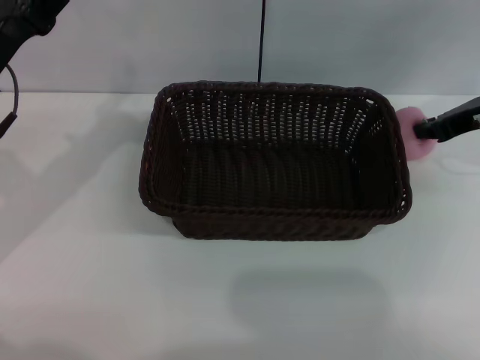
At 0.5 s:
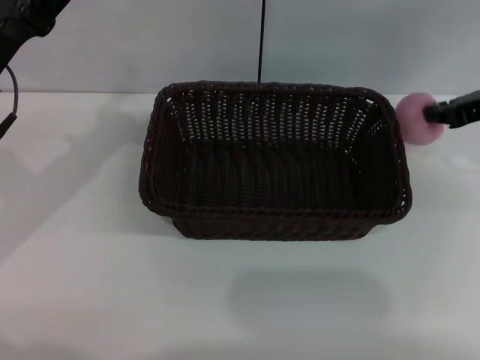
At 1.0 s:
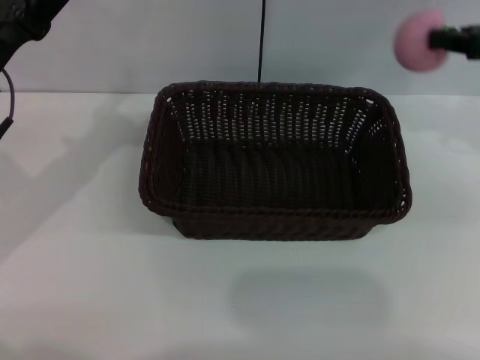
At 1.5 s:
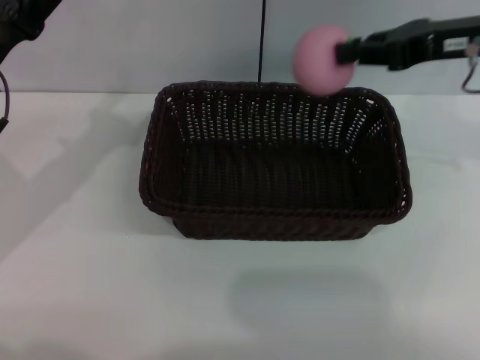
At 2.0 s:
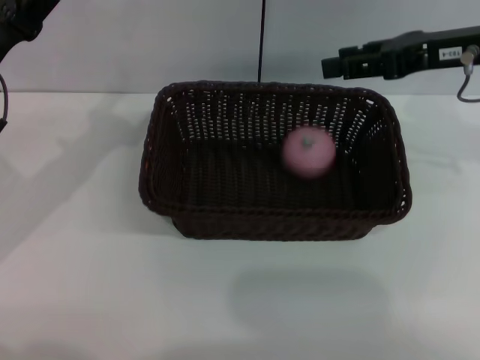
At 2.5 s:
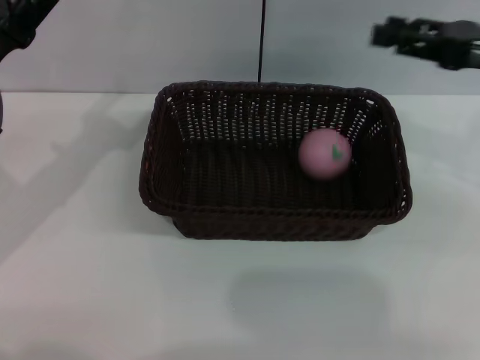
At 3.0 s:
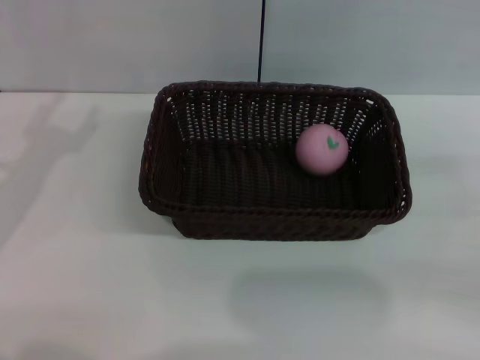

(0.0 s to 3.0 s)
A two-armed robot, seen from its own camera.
0.0 s - 1.5 s: The right gripper heads upward, covering about 10 cm.
1.5 s - 3.0 s: The left gripper moves roughly 5 cm. Meanwhile the right gripper heads backward, to the right and downward, covering roughly 25 cm, and opens its fingers.

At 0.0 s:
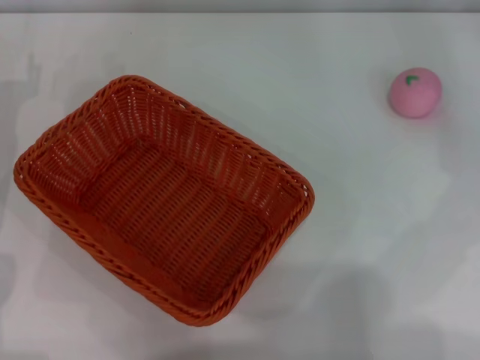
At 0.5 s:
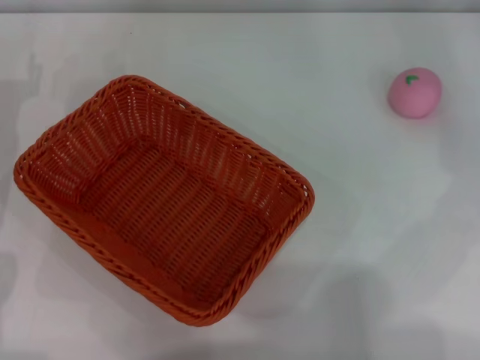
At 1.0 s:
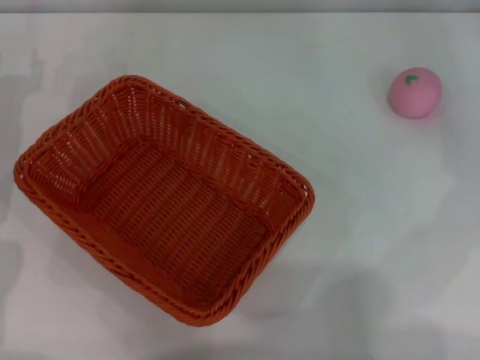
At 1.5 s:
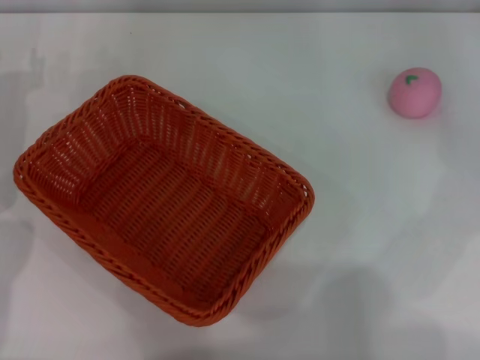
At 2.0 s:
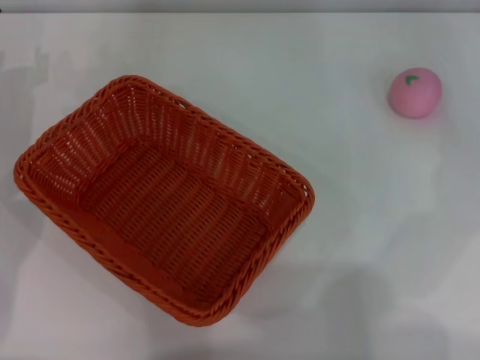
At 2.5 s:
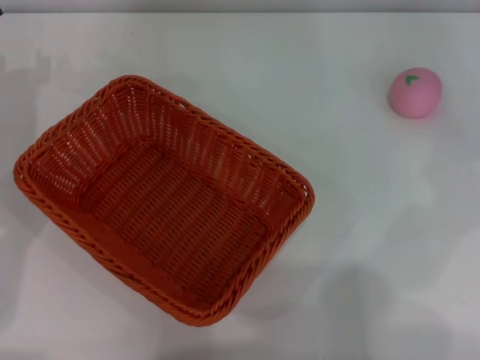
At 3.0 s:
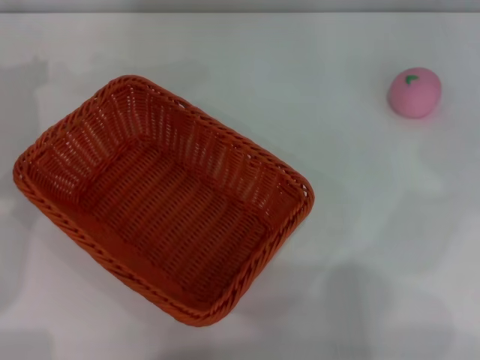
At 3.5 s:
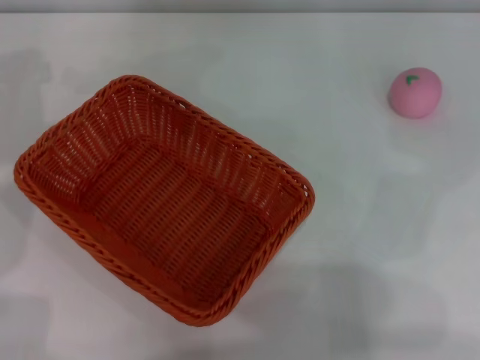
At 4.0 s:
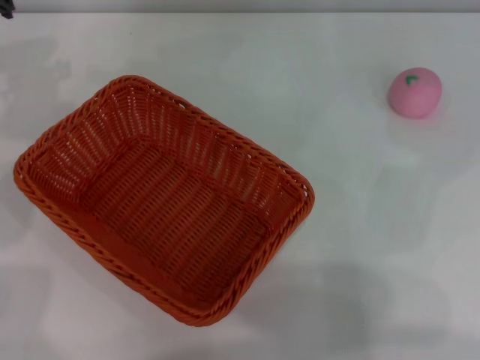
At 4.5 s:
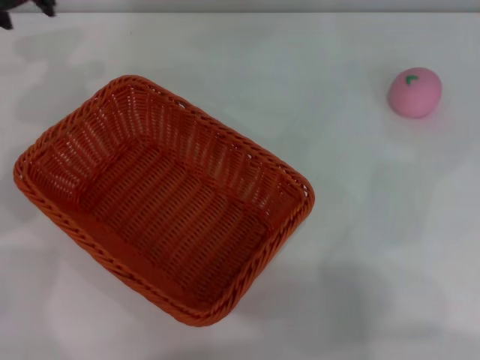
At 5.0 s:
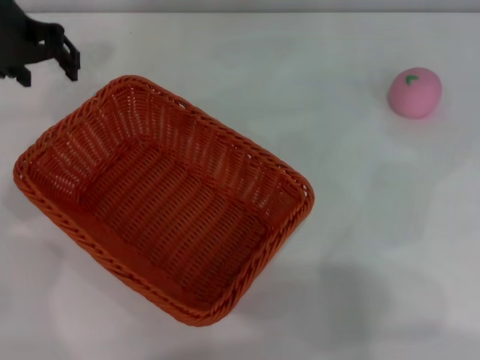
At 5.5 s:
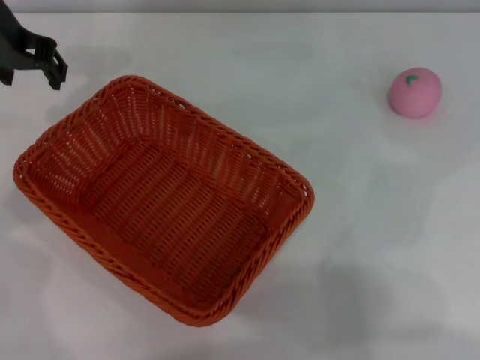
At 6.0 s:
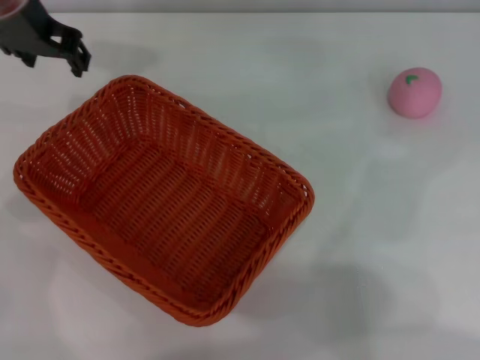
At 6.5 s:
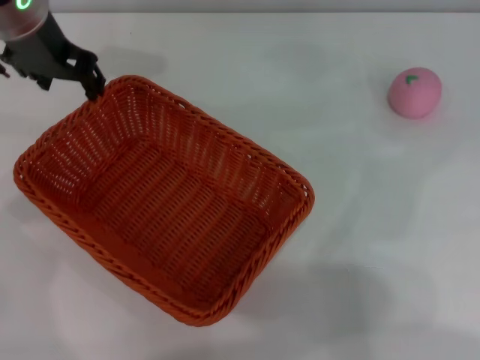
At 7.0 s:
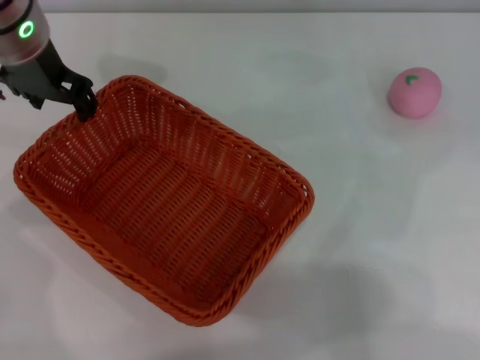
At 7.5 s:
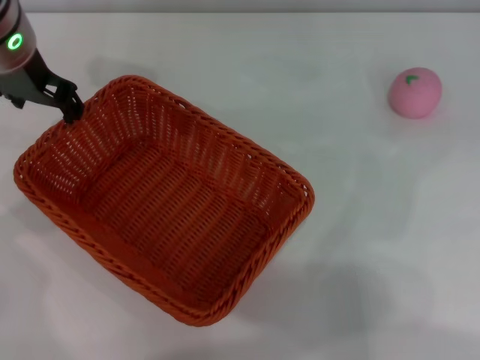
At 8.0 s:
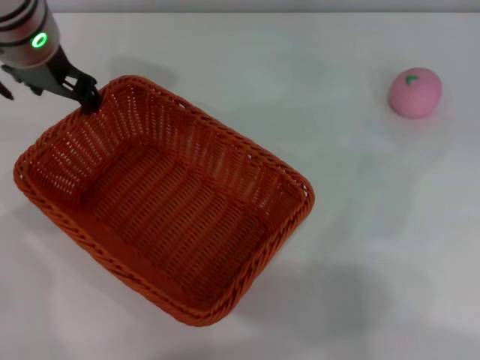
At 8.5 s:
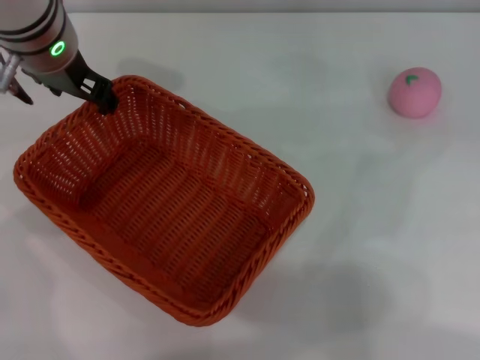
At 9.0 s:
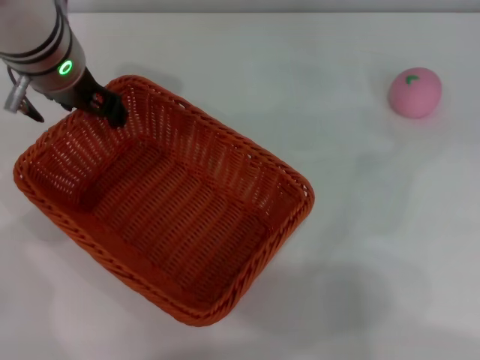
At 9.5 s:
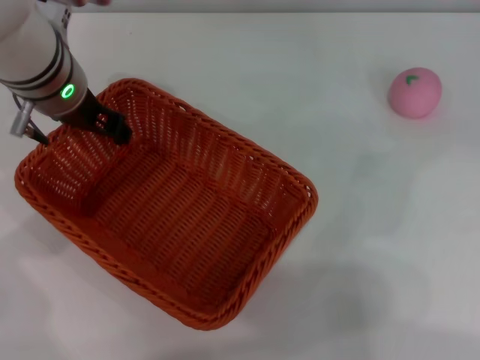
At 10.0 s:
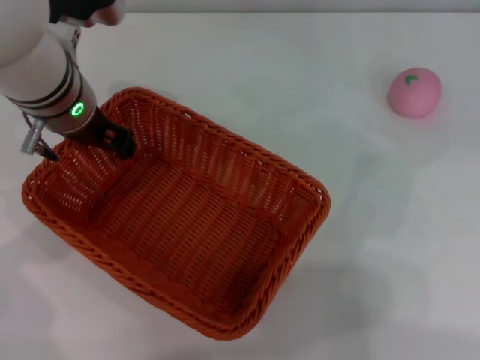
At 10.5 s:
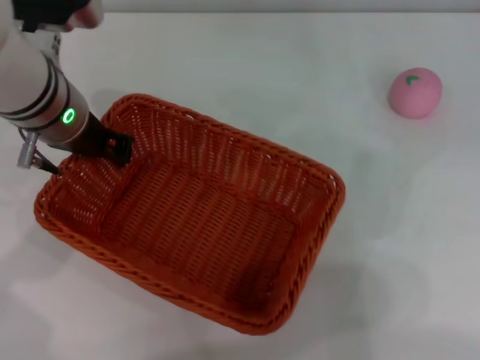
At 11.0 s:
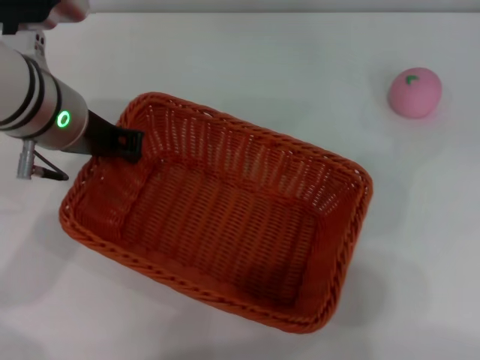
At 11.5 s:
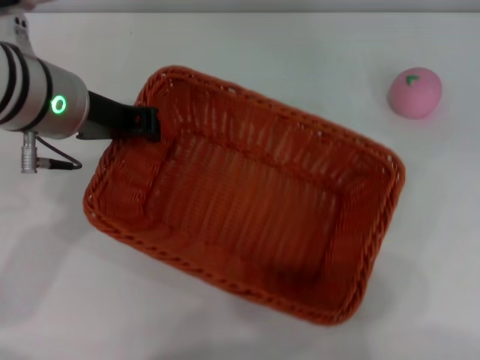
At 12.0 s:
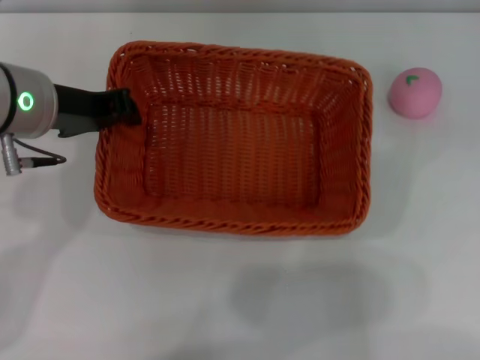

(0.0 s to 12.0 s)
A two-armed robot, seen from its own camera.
Step, 0.0 s - 11.0 s: Pick up the light basket with the left gripper.
4.0 s - 6.0 s: The left gripper heads to the right, covering some 10 cm.
6.0 s - 8.0 s: The grippers move only a little.
8.0 s - 10.0 s: The left gripper moves downward, about 5 cm.
10.0 s - 12.0 s: The left gripper moves some 5 cm, and closes.

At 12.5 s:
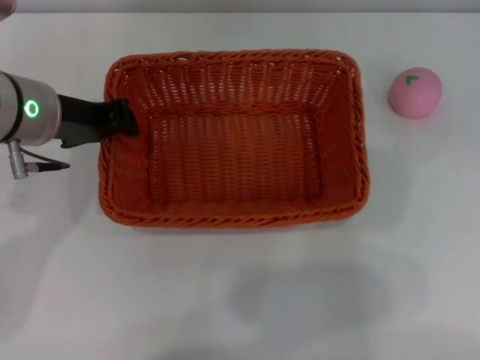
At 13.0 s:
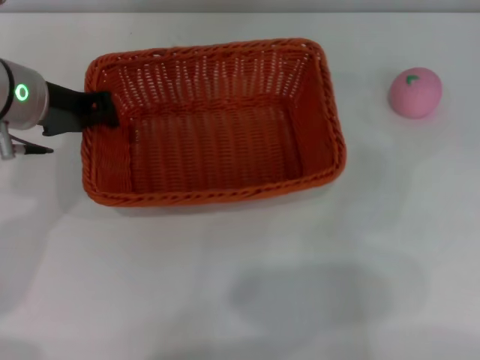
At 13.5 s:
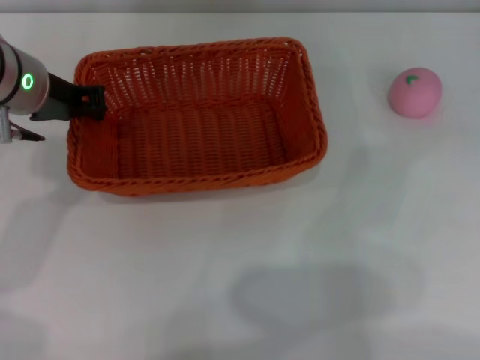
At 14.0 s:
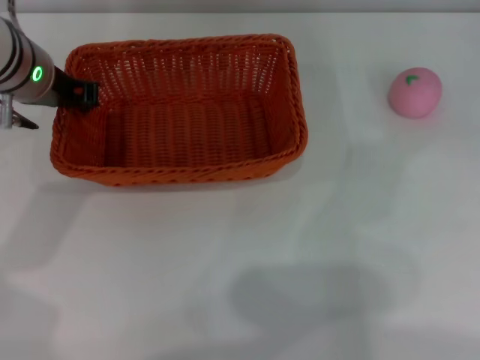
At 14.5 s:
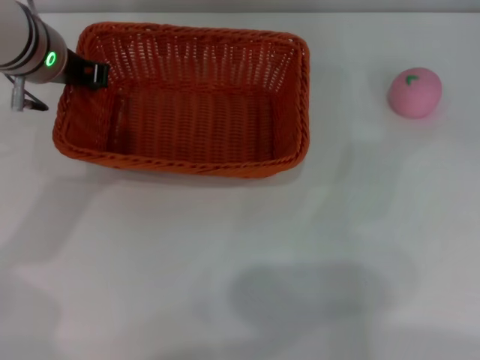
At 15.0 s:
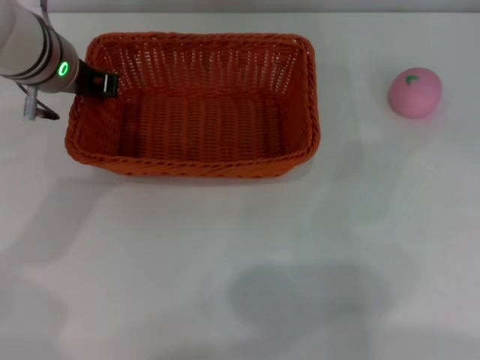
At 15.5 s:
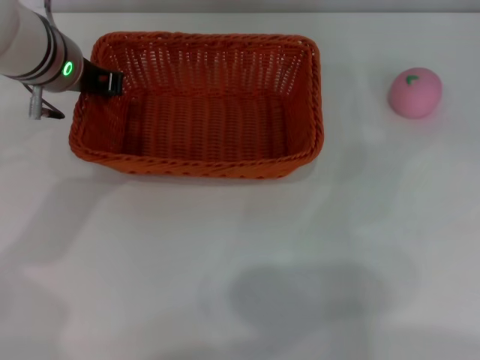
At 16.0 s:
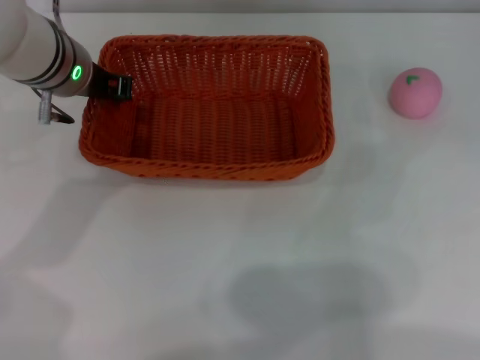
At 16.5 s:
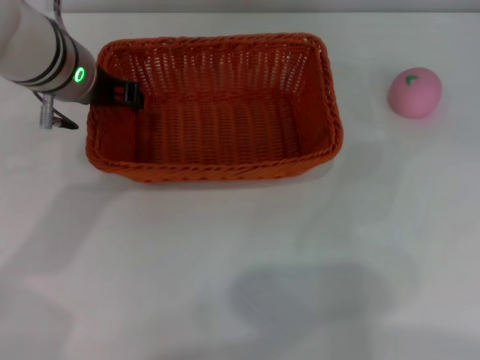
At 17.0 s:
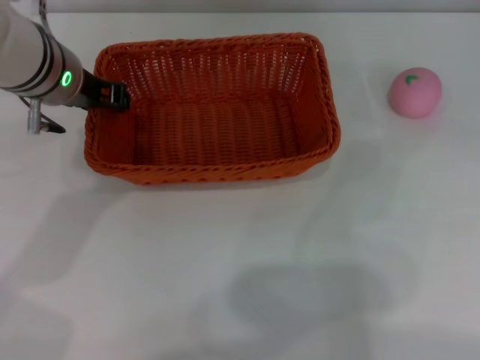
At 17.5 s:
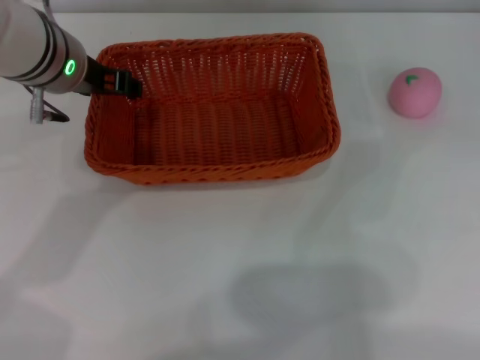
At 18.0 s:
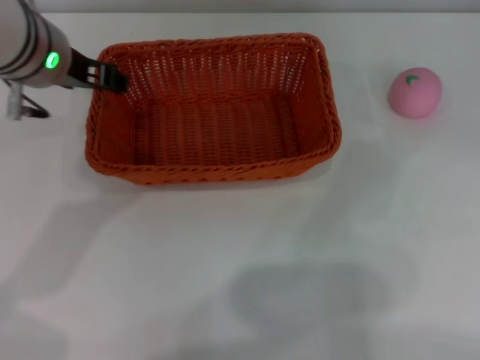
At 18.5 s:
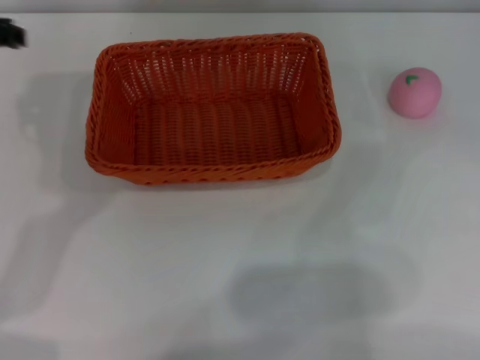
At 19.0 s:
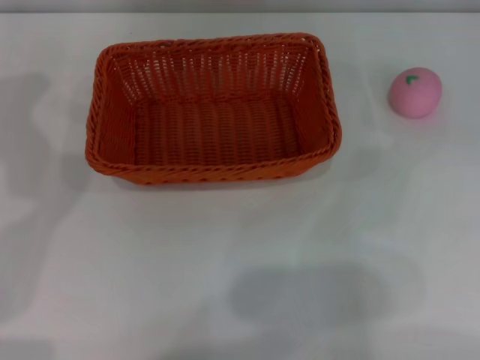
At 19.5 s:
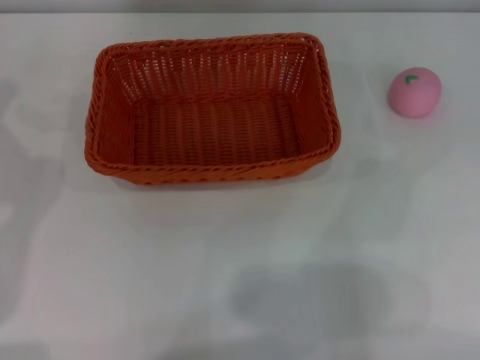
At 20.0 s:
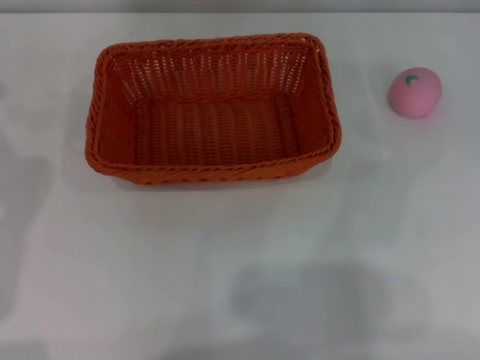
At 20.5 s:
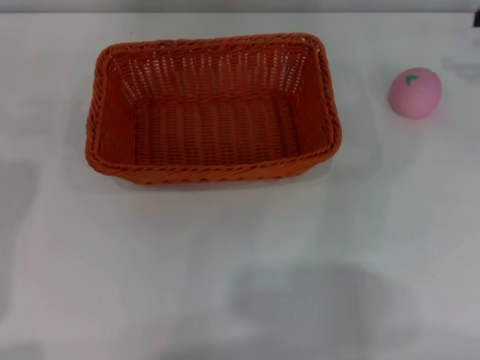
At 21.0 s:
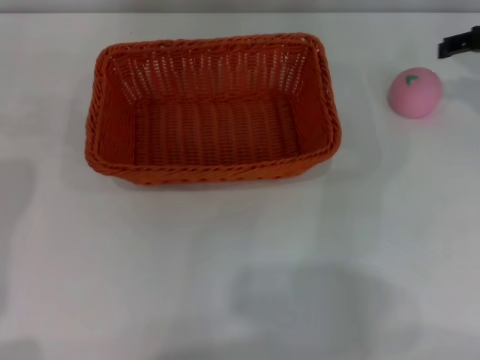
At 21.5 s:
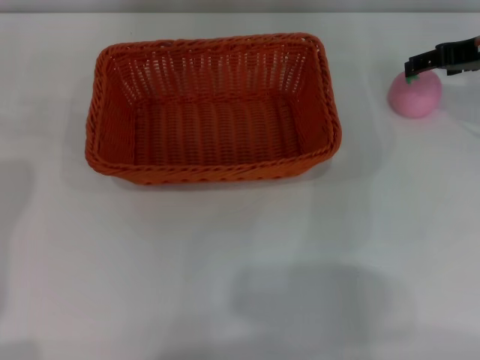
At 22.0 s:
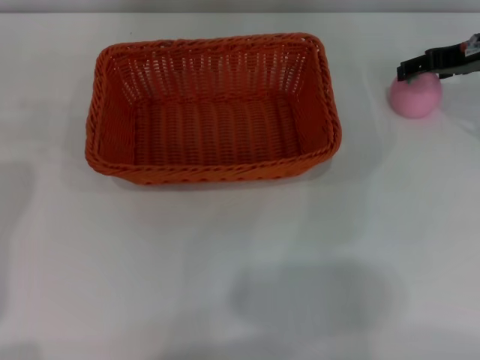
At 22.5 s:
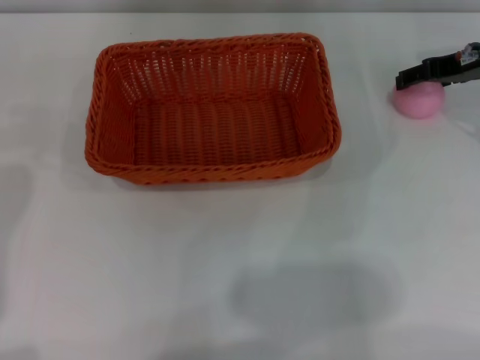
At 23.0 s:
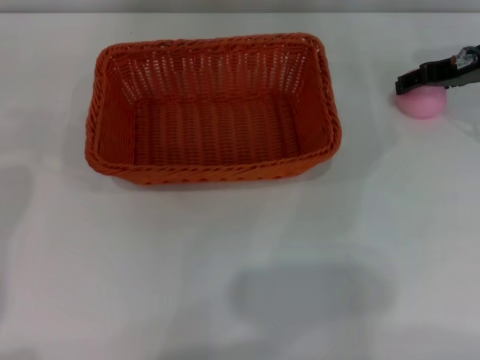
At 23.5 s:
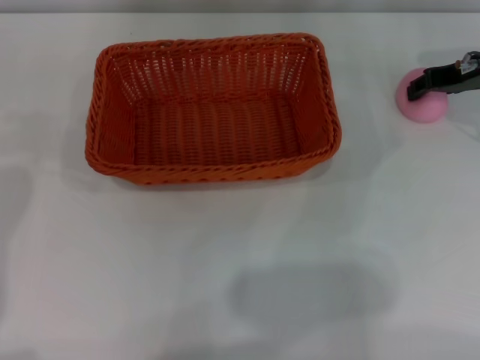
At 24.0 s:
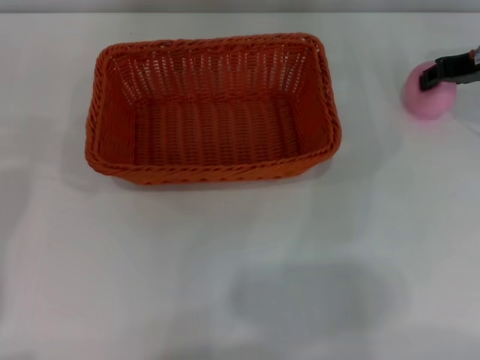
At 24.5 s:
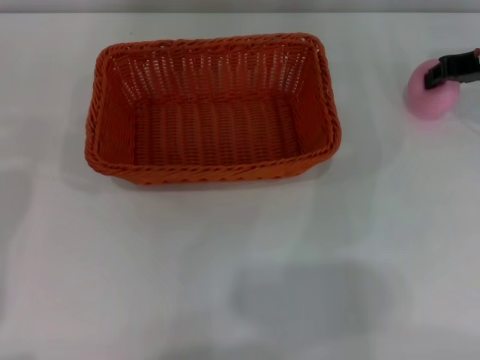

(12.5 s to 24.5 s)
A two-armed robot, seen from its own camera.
Step, 12.5 s - 18.0 s: Place the light basket in the center of view with the right gripper.
12.5 s - 14.5 s: The left gripper moves forward, roughly 5 cm.
14.5 s - 16.5 s: The left gripper opens.
16.5 s - 18.5 s: The left gripper travels upward and to the left by about 10 cm, and opens up.
20.5 s - 22.5 s: The right gripper is displaced to the left and downward by approximately 10 cm.
22.5 s - 24.5 s: The right gripper closes.
